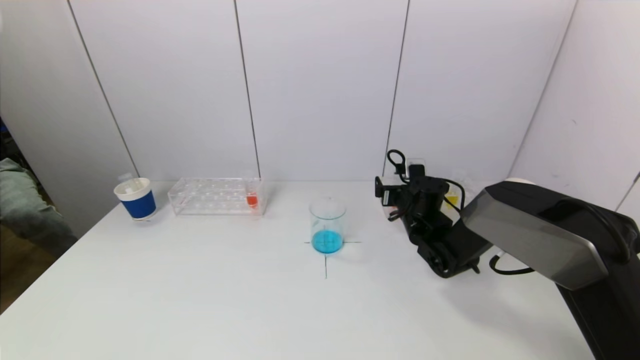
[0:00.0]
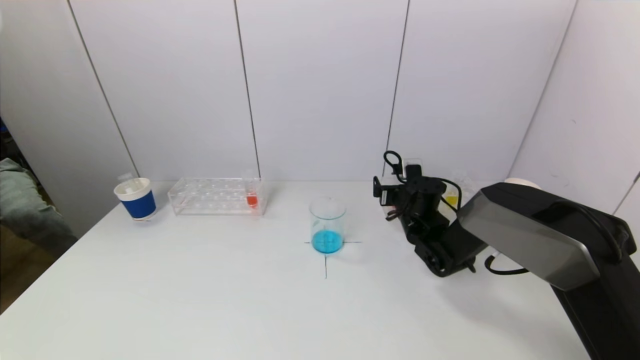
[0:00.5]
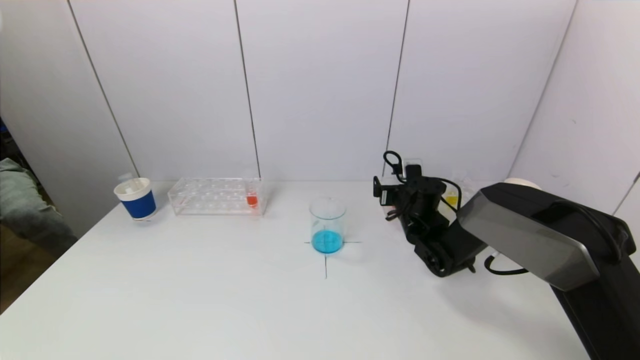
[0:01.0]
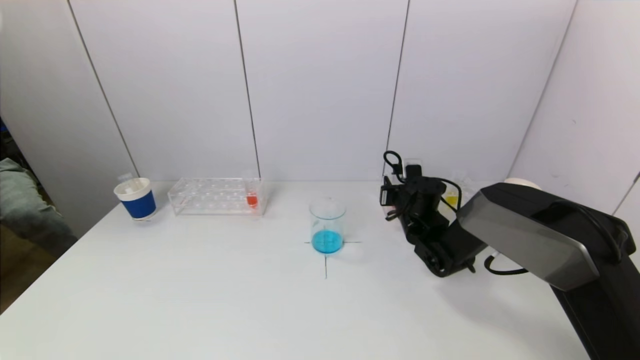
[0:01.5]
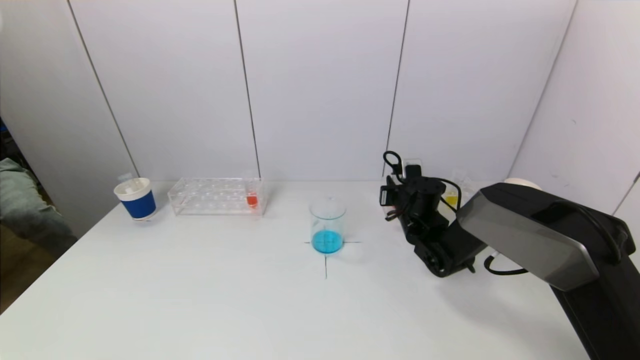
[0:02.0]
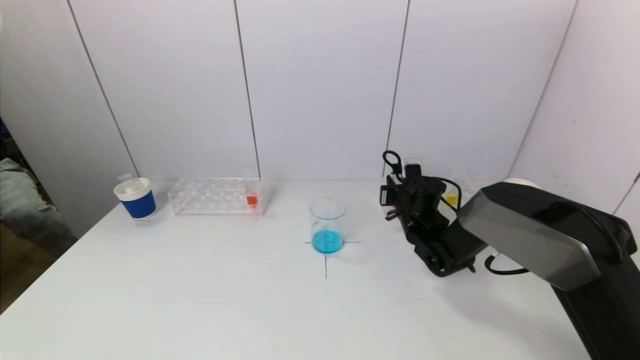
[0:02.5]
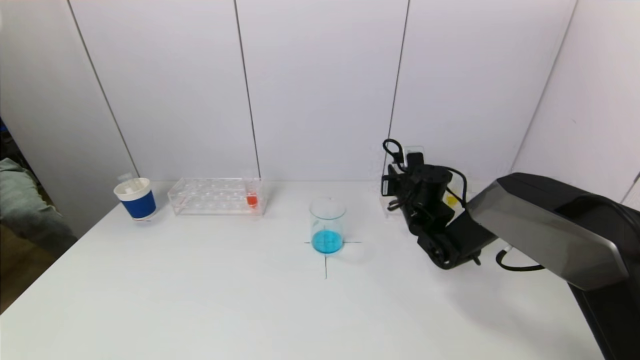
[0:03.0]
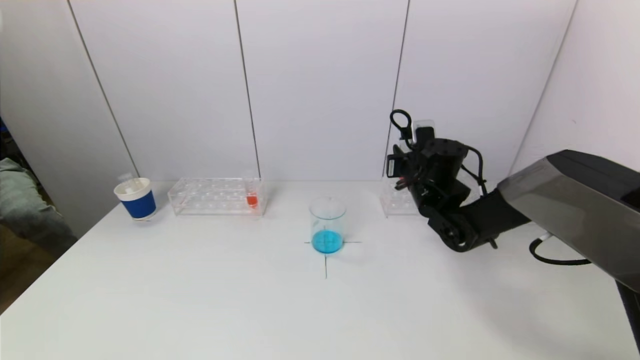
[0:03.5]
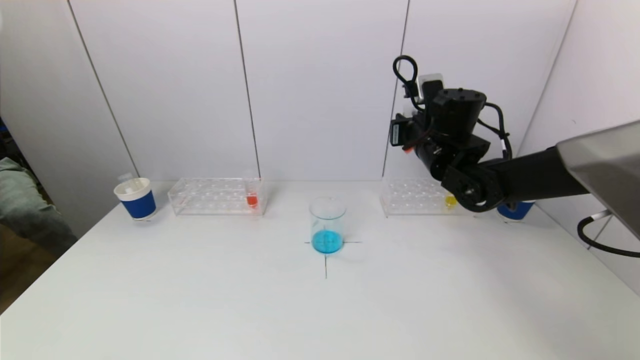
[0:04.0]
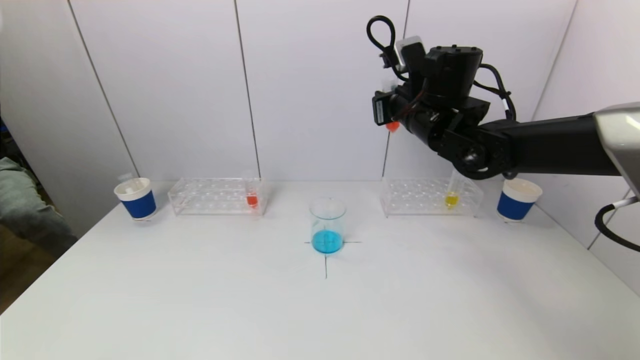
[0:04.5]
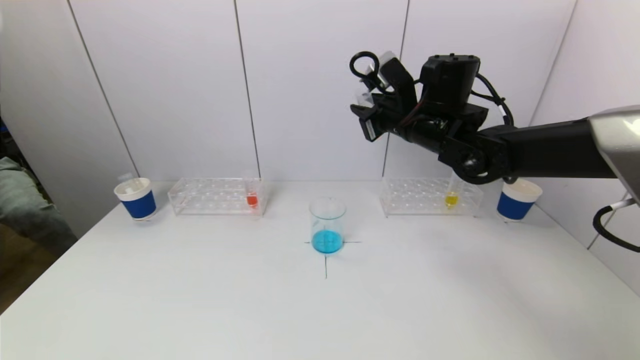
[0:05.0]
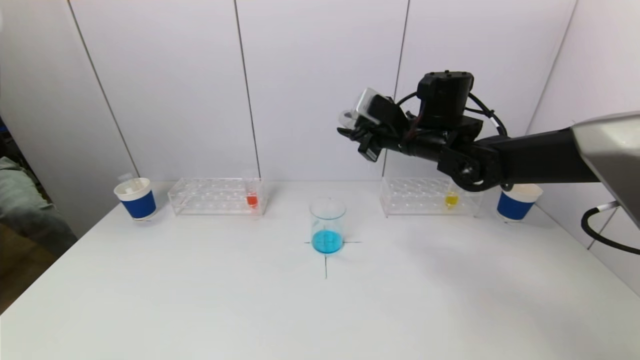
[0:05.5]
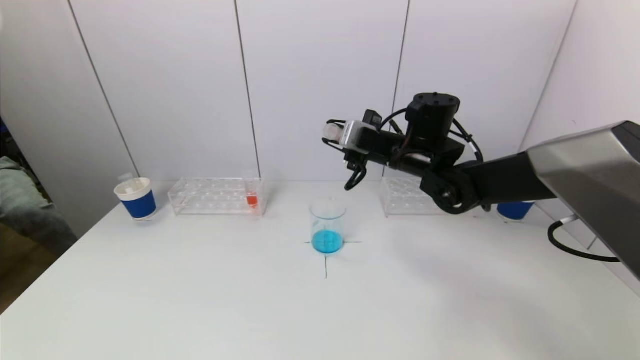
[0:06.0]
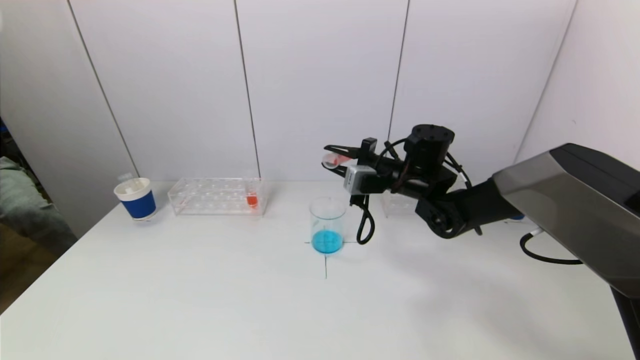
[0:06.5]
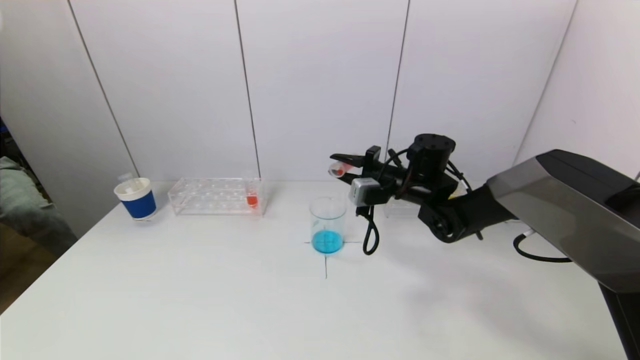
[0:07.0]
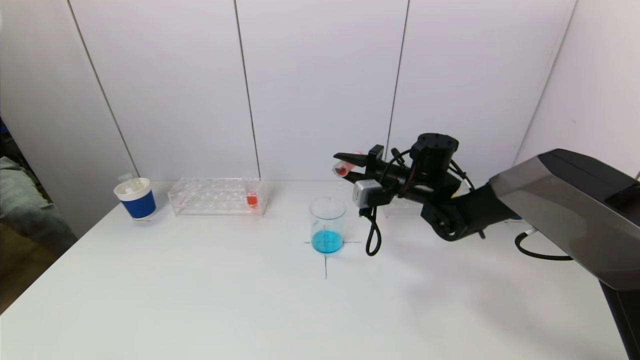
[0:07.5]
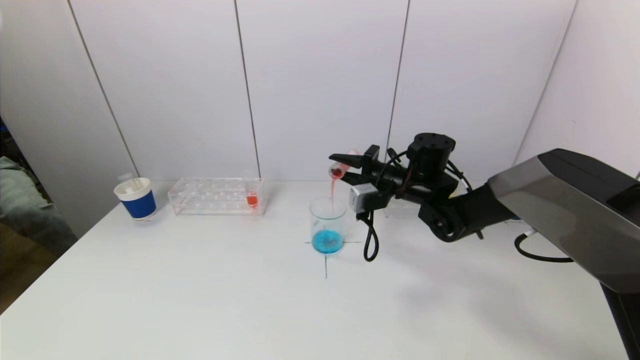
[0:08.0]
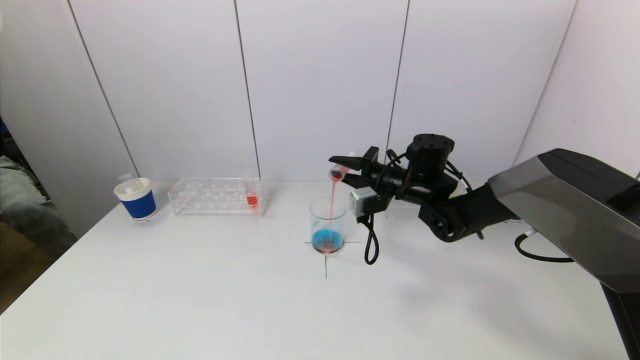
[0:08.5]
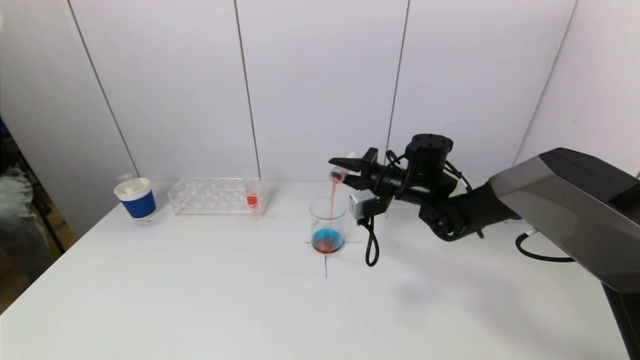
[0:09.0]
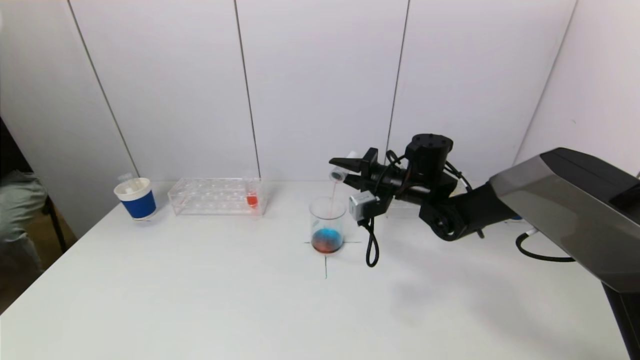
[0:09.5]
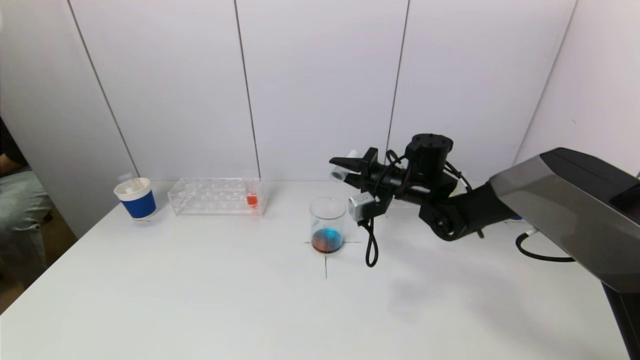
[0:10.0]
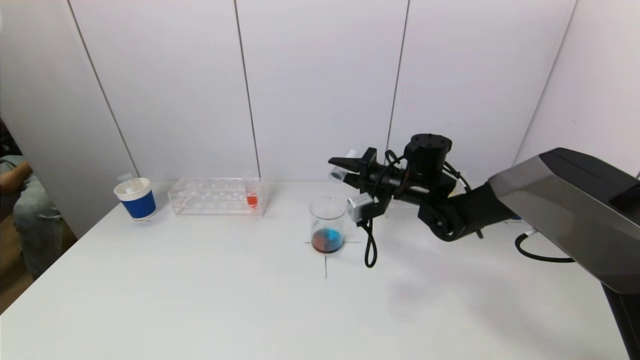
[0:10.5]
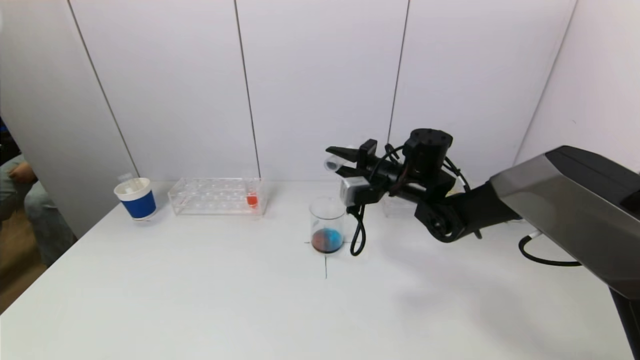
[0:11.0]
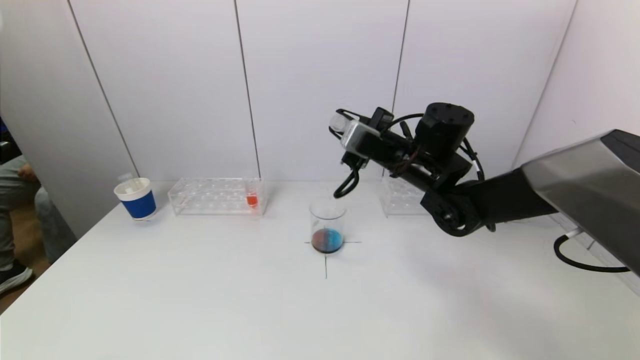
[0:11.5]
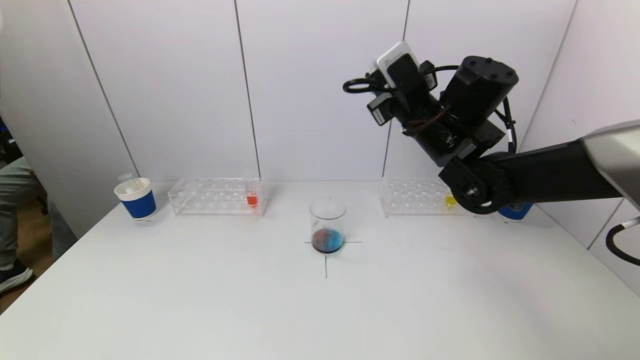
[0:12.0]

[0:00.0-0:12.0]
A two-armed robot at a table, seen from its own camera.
Task of the whole recording: pick up a test tube with pigment on left test tube rack and a test tube with pigment on right test tube rack by grippers and pour them into the beaker.
Step, 0:00.0 to 0:02.0: Grasp the red reagent with the right gripper.
Step, 0:02.5 to 0:09.5: Pour the red reagent into the graduated cylinder with the right gripper.
0:00.0 to 0:02.0: The right gripper closes its fingers.
0:02.0 to 0:04.0: The right gripper moves upward, about 15 cm.
0:06.0 to 0:08.0: The right gripper is displaced downward by roughly 5 cm.
0:08.0 to 0:10.0: The grippers stay close to where they were, moving slightly.
0:10.0 to 0:12.0: The right gripper heads upward, covering roughly 15 cm.

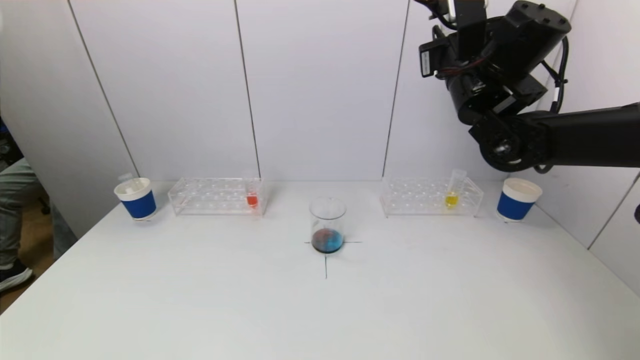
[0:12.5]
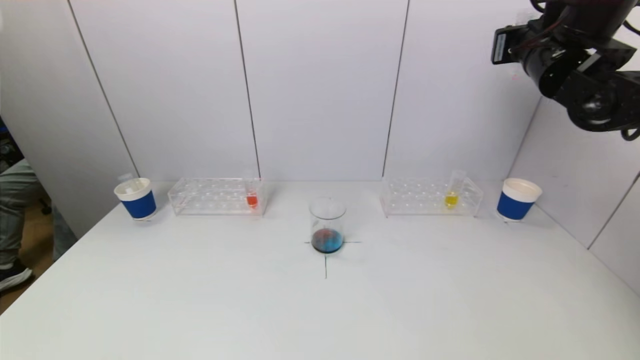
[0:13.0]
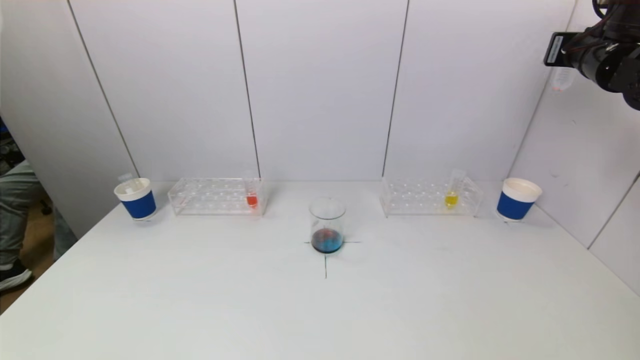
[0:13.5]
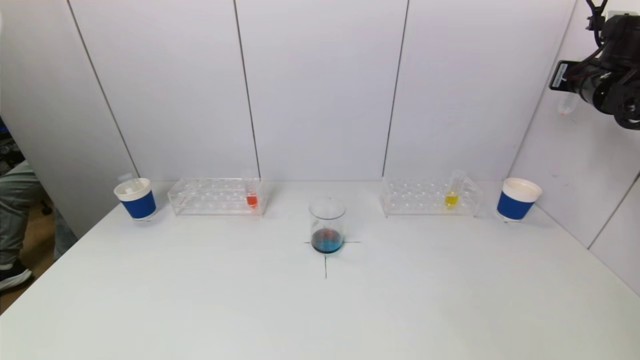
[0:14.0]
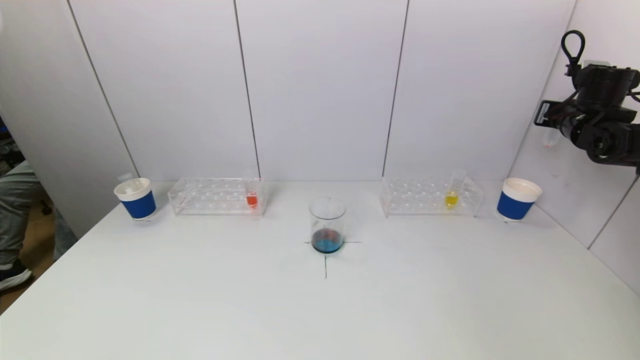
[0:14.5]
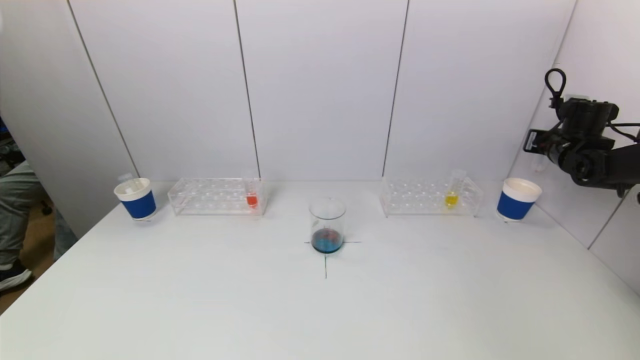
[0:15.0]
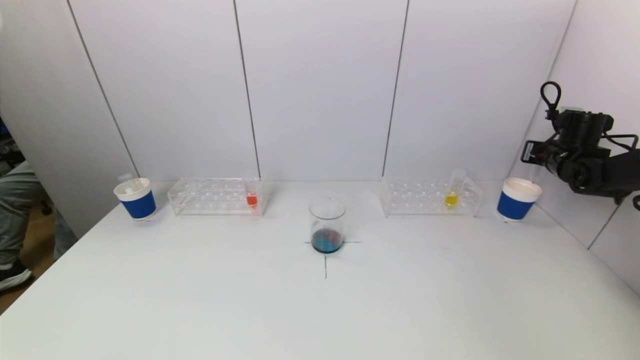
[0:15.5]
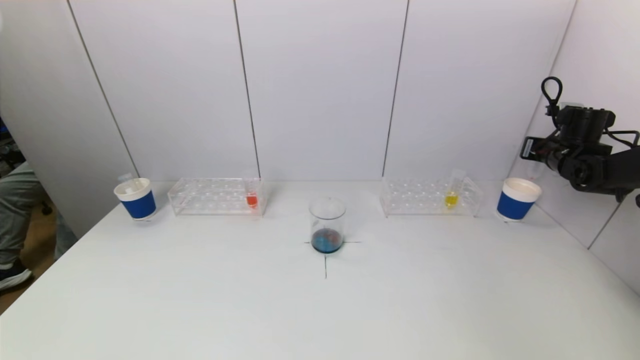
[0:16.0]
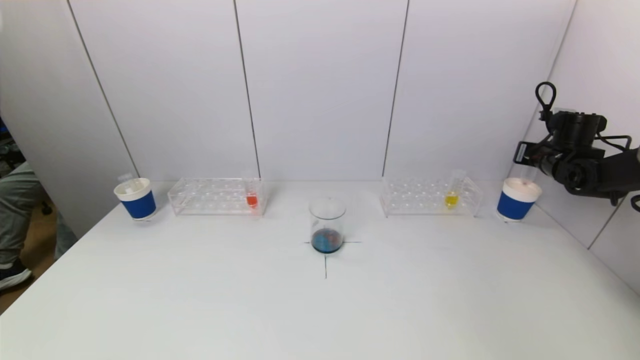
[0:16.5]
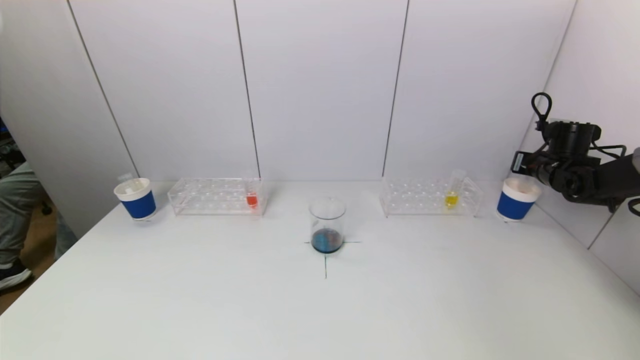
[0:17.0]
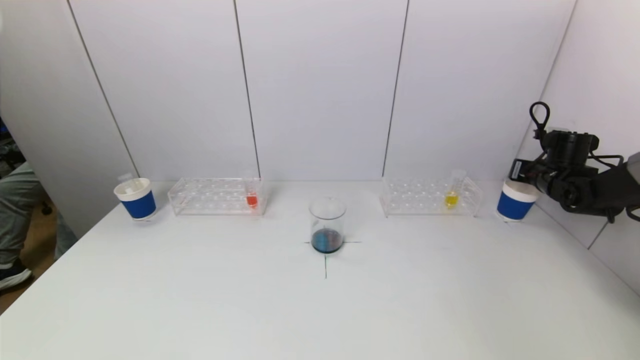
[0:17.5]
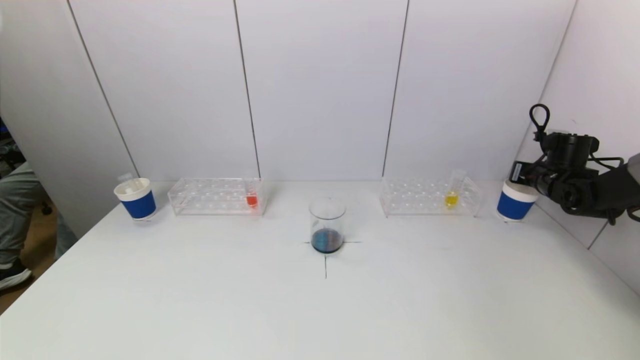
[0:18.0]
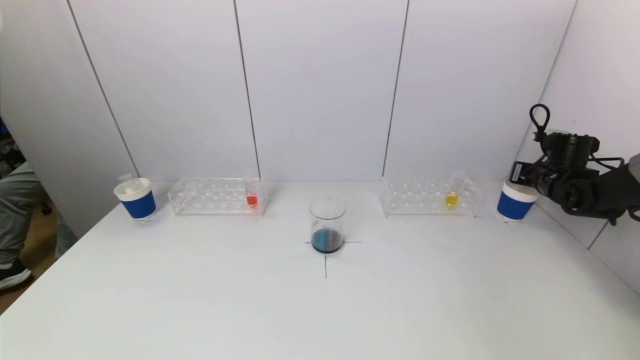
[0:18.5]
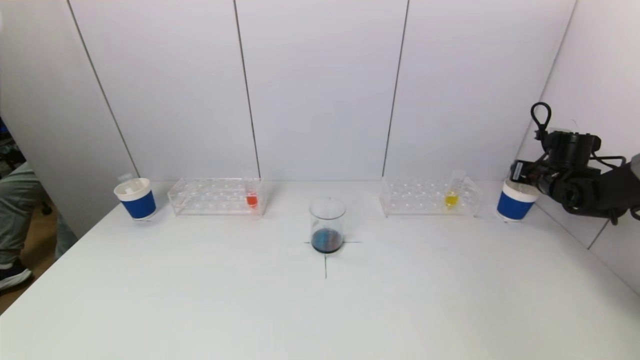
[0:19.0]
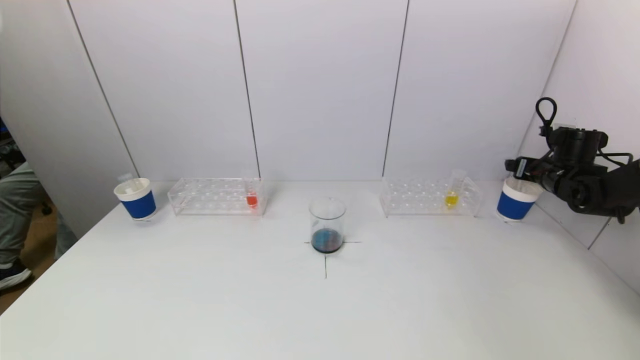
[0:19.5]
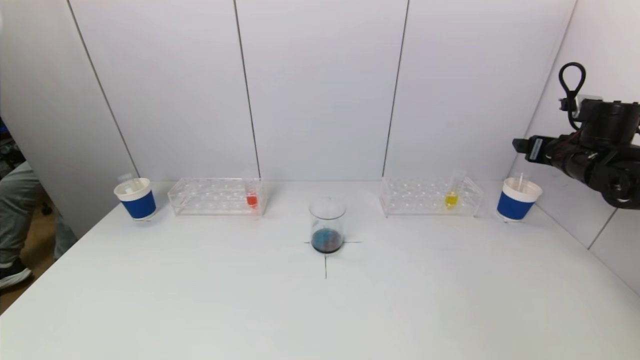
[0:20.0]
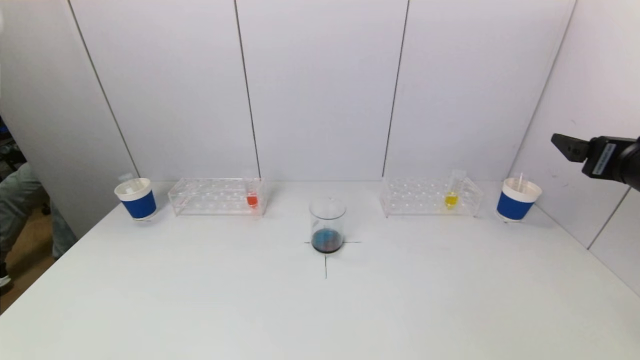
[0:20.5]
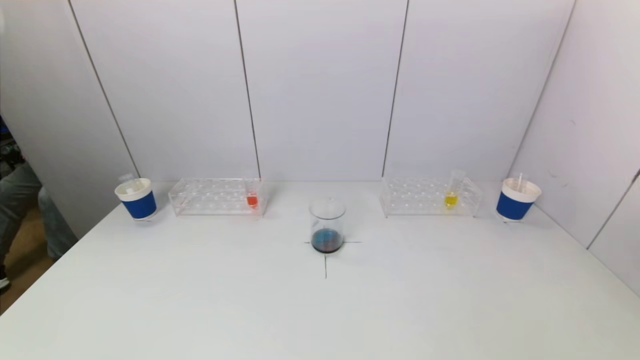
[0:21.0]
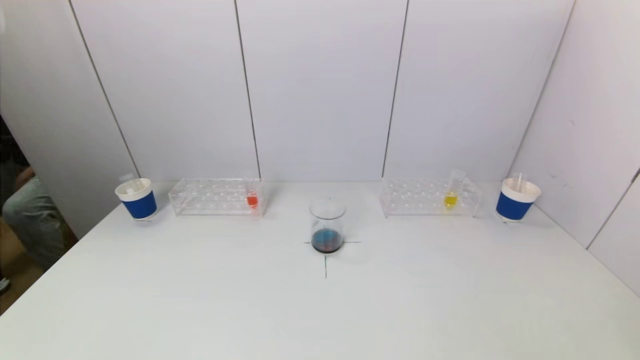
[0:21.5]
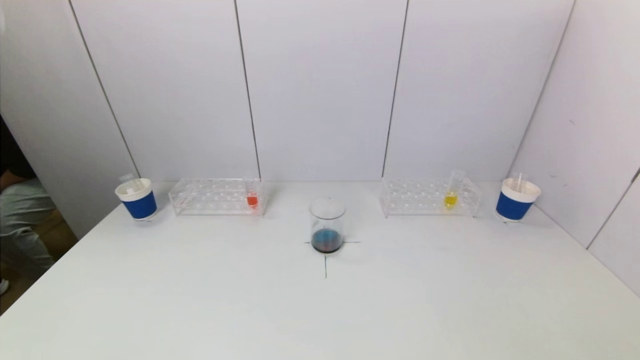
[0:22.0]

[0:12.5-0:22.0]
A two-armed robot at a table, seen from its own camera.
Task of the whole recording: pick up a test tube with pigment on left test tube rack and a test tube with pigment on right test tube rack by grippers and pour them into the beaker.
Step, 0:12.5 to 0:19.5: Place the test tube into the paper cup with the right gripper.
0:12.5 to 0:14.5: The right gripper moves to the right, some 25 cm.
0:14.5 to 0:16.5: The right gripper heads downward, covering roughly 10 cm.
0:16.5 to 0:18.0: There are only small adjustments of the grippers.
0:18.0 to 0:20.0: The right gripper heads upward and backward, covering approximately 10 cm, and opens.
0:20.0 to 0:22.0: The right gripper moves backward, approximately 40 cm.
